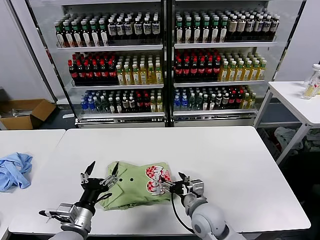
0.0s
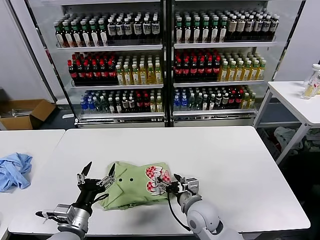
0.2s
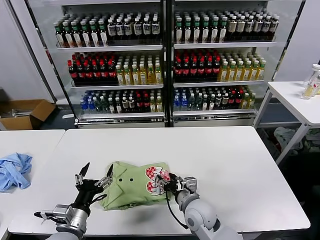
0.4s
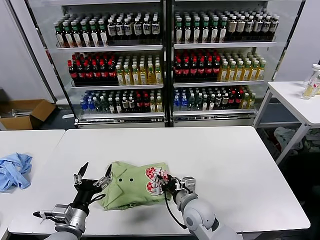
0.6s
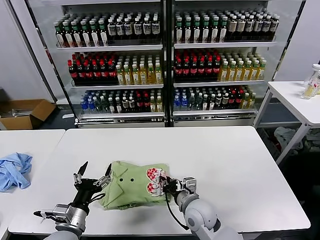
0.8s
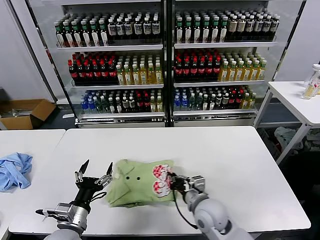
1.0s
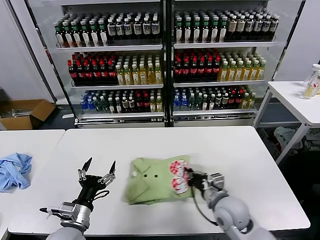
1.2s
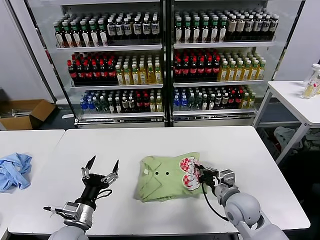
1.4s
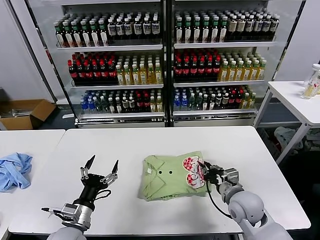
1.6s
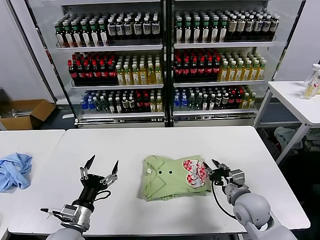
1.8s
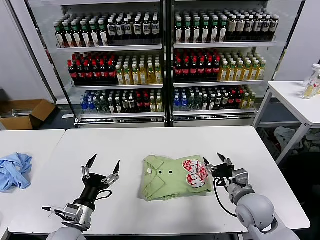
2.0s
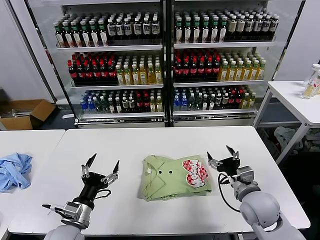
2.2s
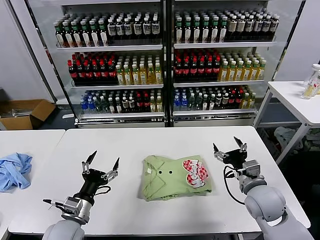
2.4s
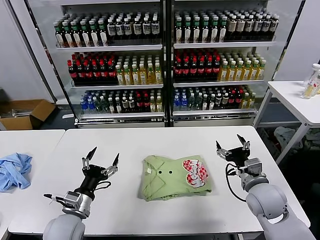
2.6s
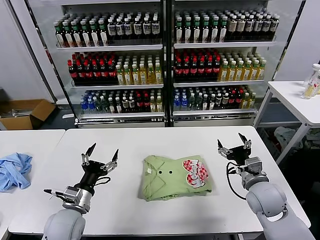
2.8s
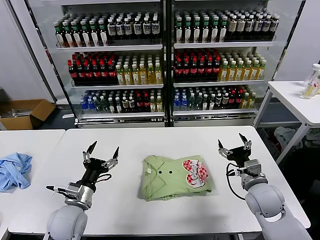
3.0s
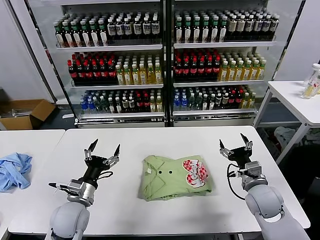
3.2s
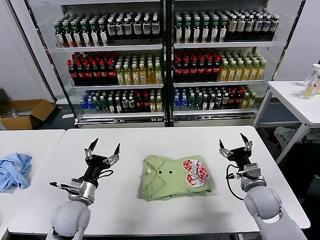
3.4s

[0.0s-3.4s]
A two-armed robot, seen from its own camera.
Task of the whole recording: fold and organize the clothes.
Step, 0.0s to 1.8s: Drag the clothes to the center of the table.
0.0s to 1.6s: The right gripper travels to the right by some 10 cm, and closes up.
1.6s to 3.4s: The left gripper heads forward, covering about 5 cm. Meanwhile the right gripper is displaced to the right by some 5 cm, and opens its fingers.

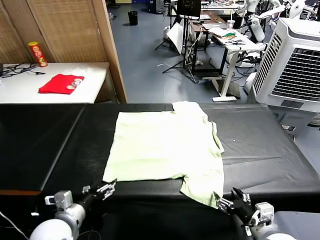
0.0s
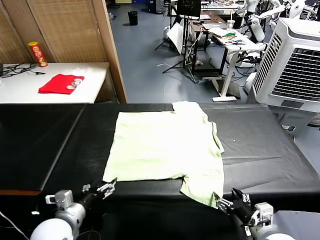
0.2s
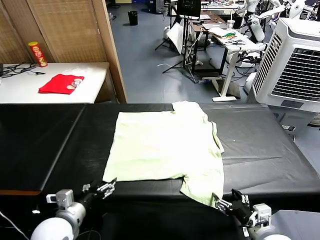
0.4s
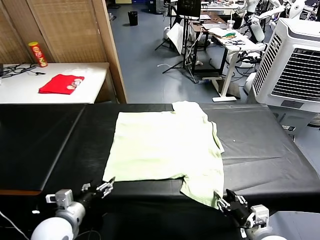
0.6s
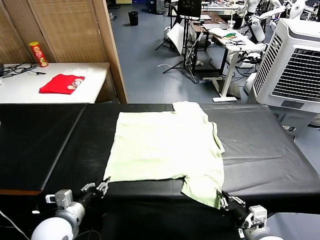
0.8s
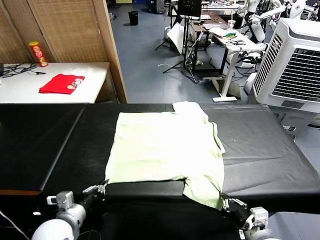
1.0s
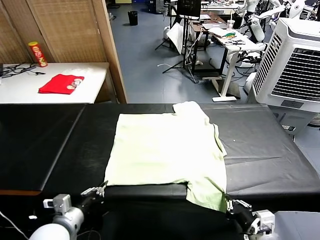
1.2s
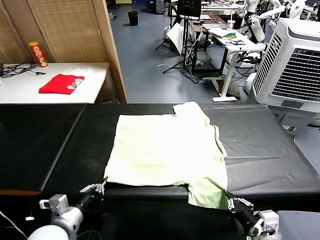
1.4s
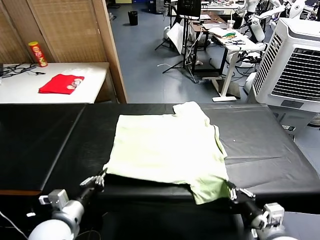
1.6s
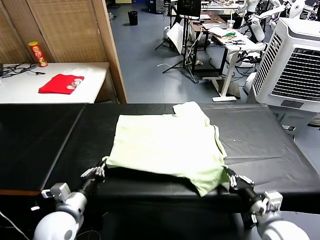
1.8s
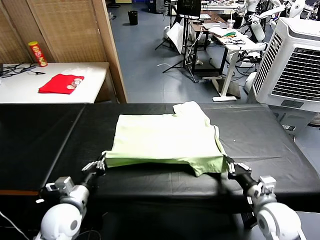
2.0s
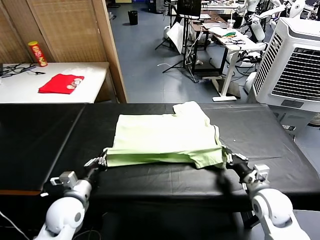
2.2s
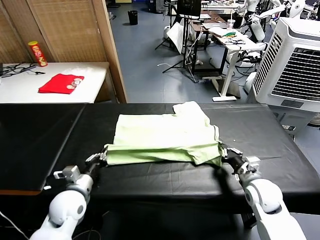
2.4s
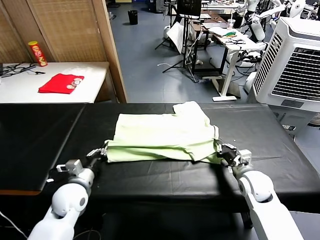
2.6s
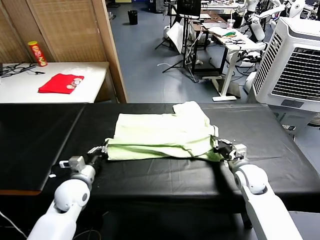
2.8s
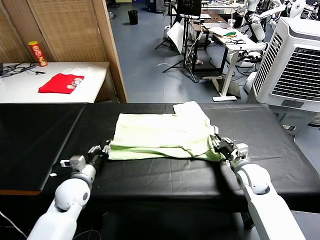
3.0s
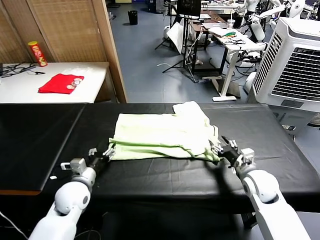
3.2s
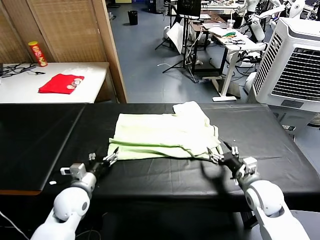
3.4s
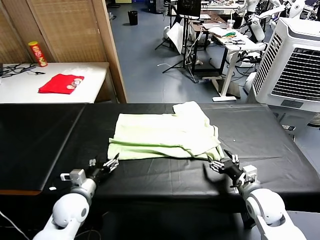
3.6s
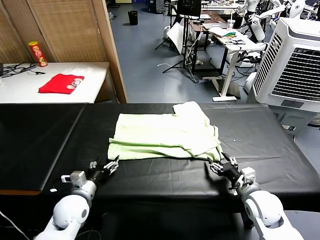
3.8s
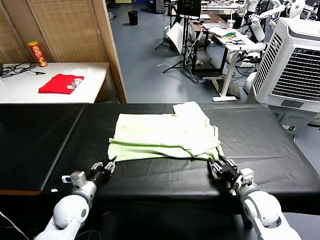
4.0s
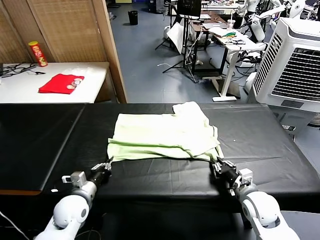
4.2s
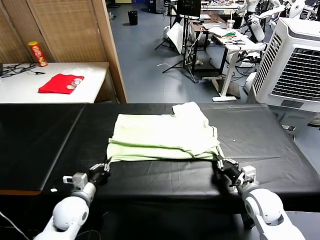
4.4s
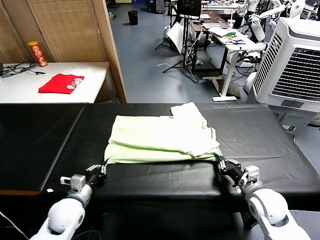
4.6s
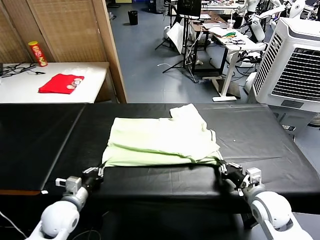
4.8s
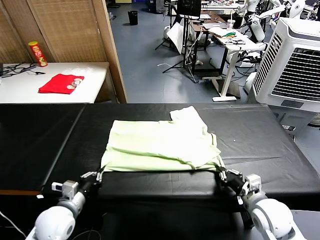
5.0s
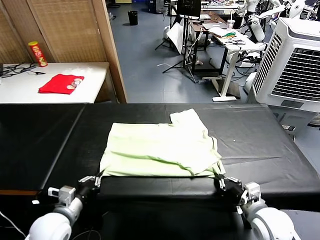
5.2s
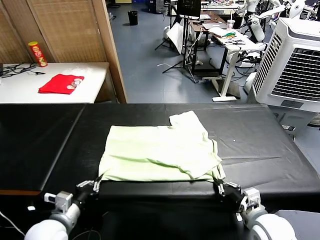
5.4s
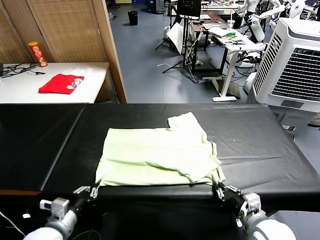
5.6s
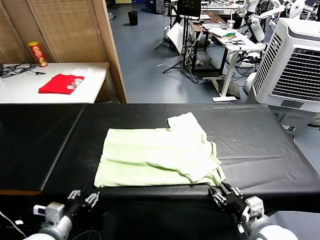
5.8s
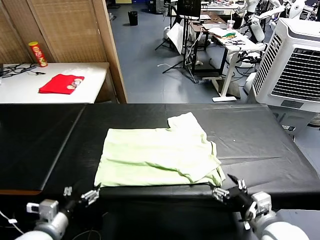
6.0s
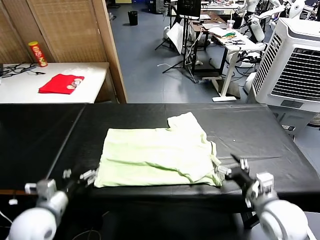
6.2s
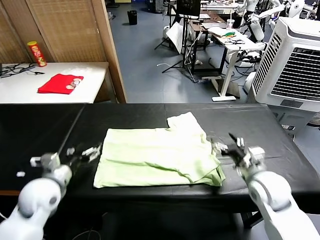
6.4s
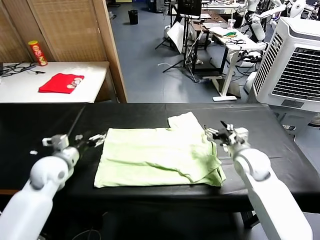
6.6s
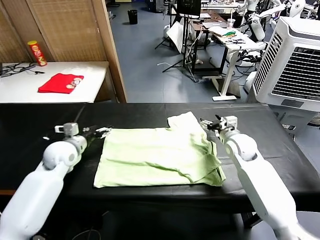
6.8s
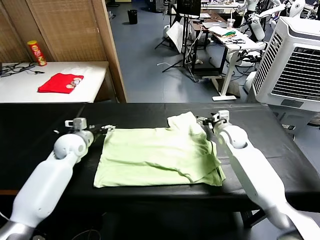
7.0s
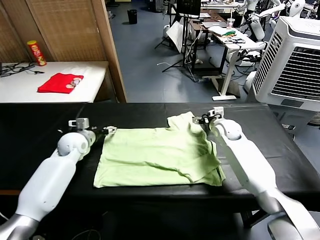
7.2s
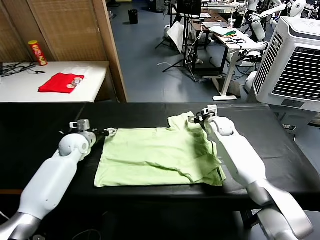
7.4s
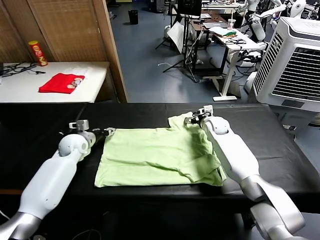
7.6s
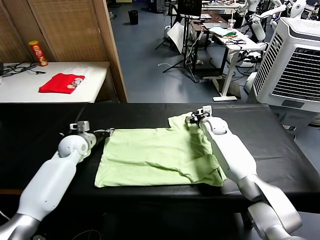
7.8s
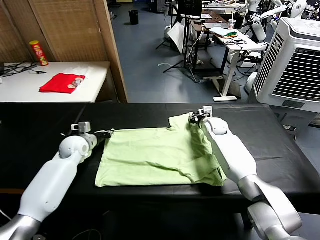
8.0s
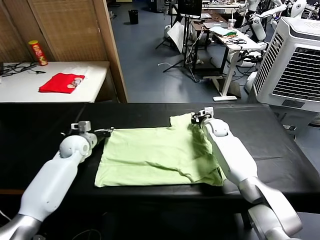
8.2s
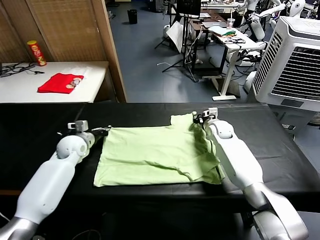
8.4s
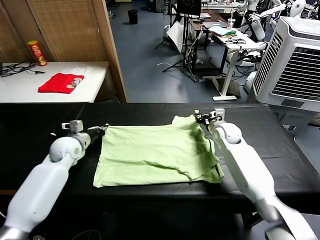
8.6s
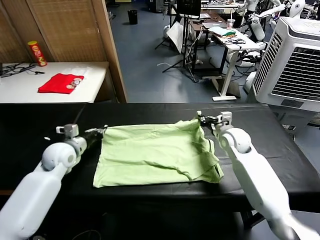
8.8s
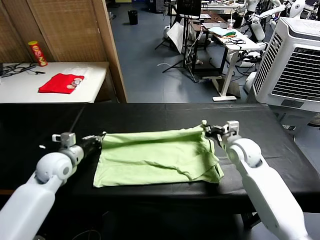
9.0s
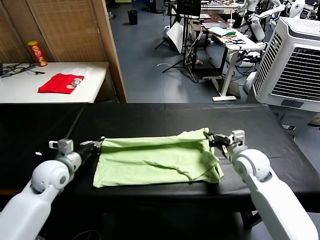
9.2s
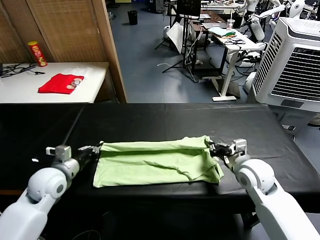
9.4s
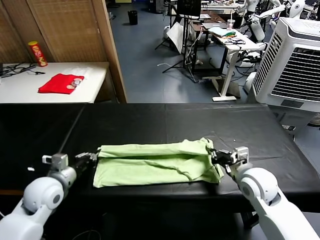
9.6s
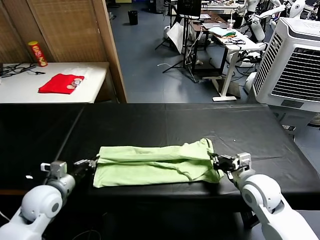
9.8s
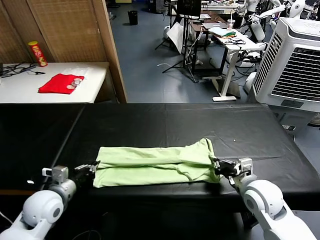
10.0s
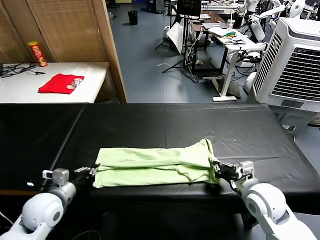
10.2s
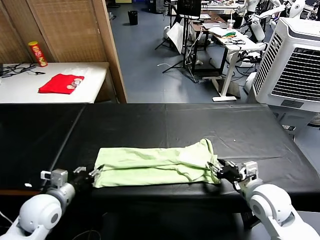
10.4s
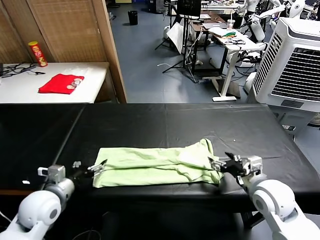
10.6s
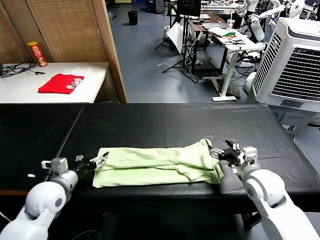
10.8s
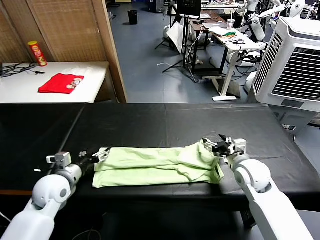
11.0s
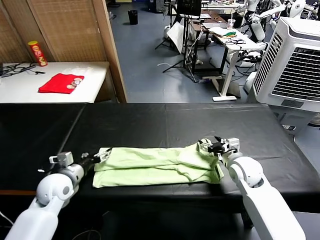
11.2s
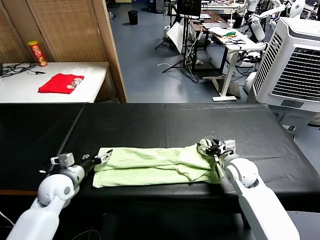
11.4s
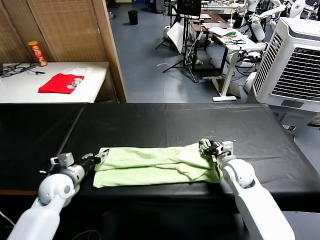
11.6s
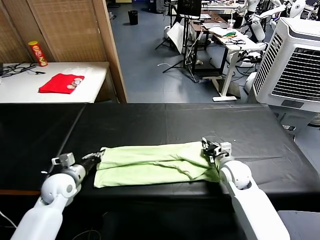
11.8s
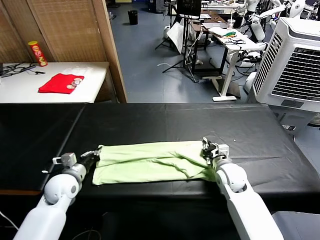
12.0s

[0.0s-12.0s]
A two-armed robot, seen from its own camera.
Task of the whole recording: fold and organize the clothes.
Step, 0.0s to 1.0s: use both grippers simultaneously to clamp the lower edge of the clothing fabric.
Step, 1.2s to 3.2s: use both grippers to drag the lower edge of the fabric forward and fold it over the upper edge.
Step, 3.4s to 5.8s: Drag the clothes downward with both gripper.
Step, 6.2s to 8.0s: use both grippers simultaneously to clamp the upper edge of the clothing fabric.
Step, 8.4s to 10.4s: use both grippers to drag the upper edge of the fabric backward and fold it over the lower edge.
1.6s to 3.0s: Both grippers move forward, some 15 cm. The right gripper opens. Meanwhile the left gripper opens up.
3.0s to 4.4s: The right gripper heads backward, covering approximately 5 cm, and closes its fingers; the left gripper moves approximately 5 cm, and closes up.
4.4s to 6.0s: Both grippers travel together backward and upward, approximately 10 cm. The right gripper opens its fingers. The left gripper opens up.
6.0s to 7.6s: The two grippers go some 35 cm forward. The right gripper closes.
7.6s to 9.0s: The right gripper travels backward by roughly 20 cm, and closes up. The left gripper heads backward, covering about 10 cm, and closes its fingers.
9.0s to 10.4s: The grippers both shift backward by some 10 cm. The left gripper opens. The right gripper opens its fingers.
10.4s to 12.0s: The right gripper goes roughly 15 cm forward, downward and to the left, and closes its fingers, while the left gripper moves forward and downward, some 10 cm, and closes.

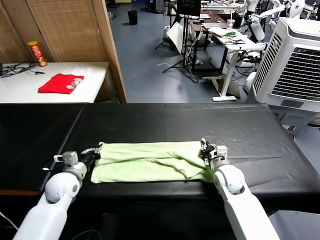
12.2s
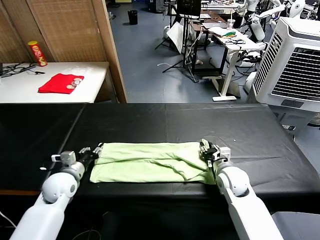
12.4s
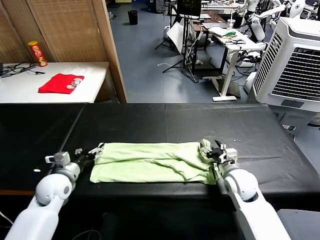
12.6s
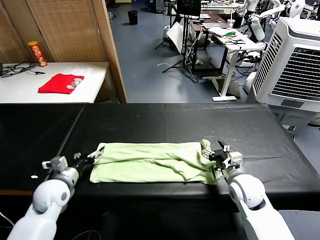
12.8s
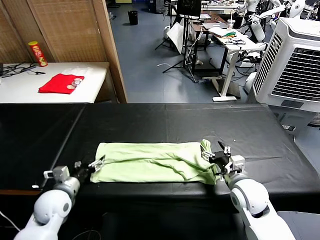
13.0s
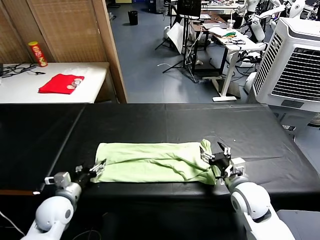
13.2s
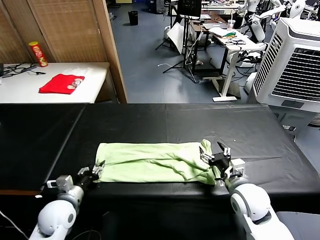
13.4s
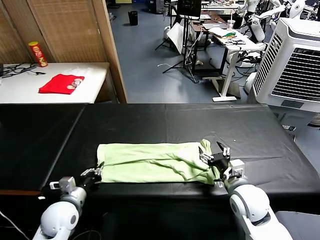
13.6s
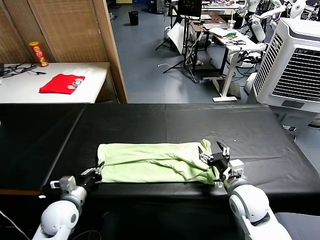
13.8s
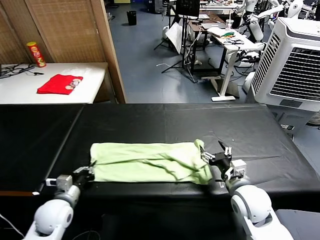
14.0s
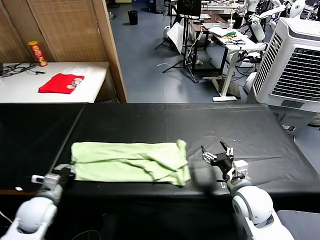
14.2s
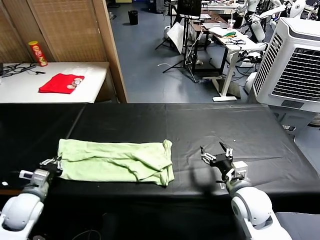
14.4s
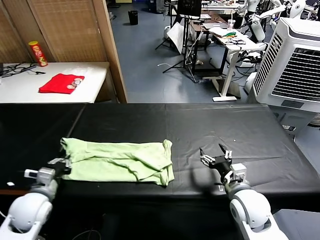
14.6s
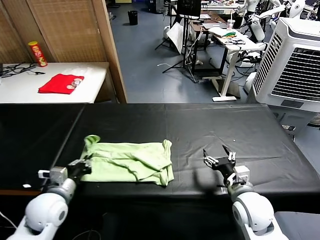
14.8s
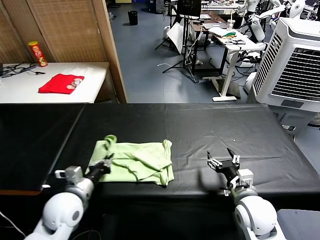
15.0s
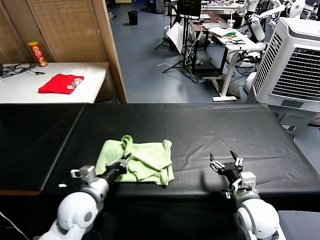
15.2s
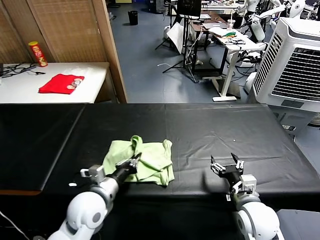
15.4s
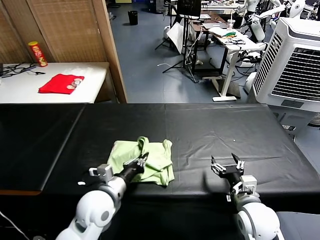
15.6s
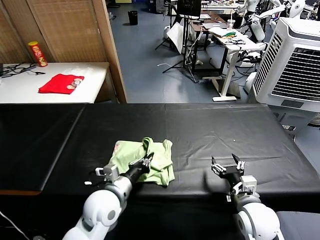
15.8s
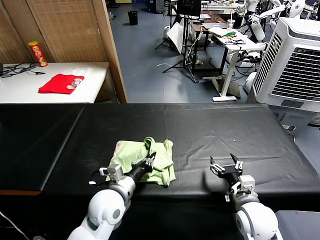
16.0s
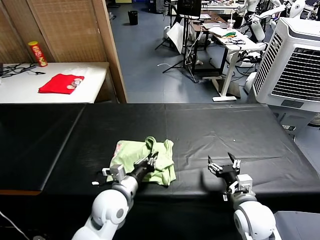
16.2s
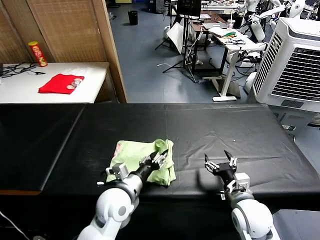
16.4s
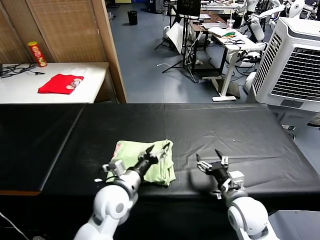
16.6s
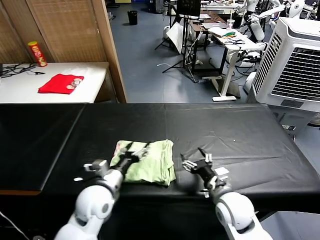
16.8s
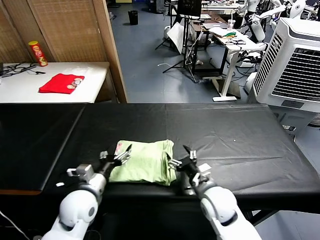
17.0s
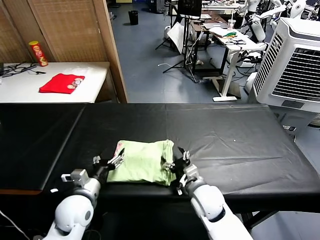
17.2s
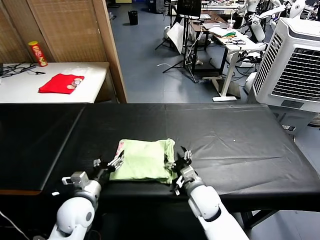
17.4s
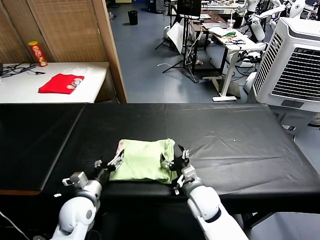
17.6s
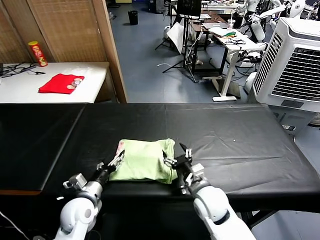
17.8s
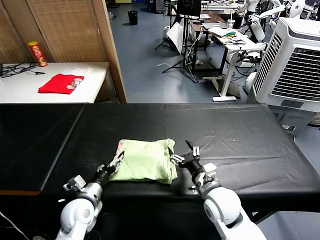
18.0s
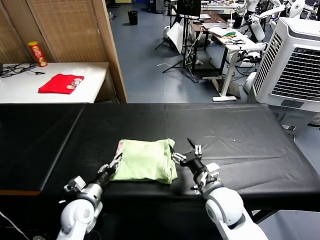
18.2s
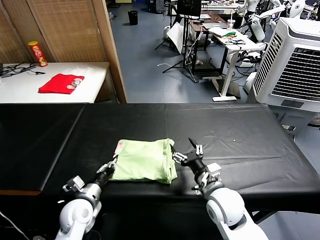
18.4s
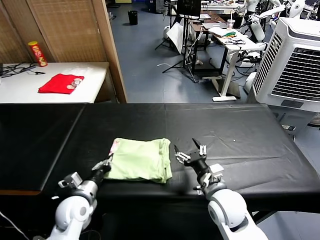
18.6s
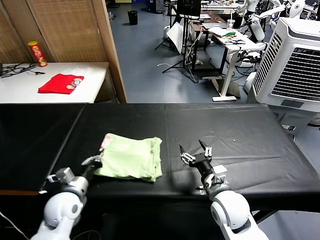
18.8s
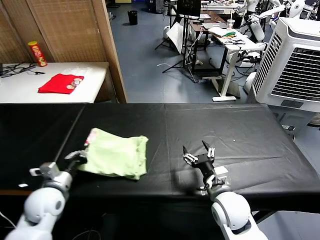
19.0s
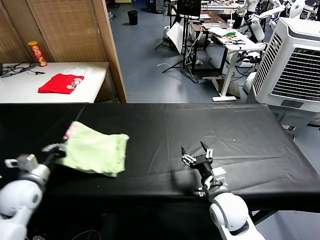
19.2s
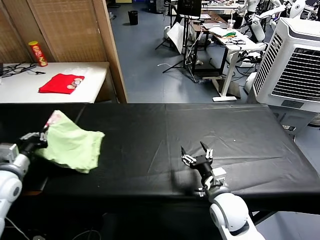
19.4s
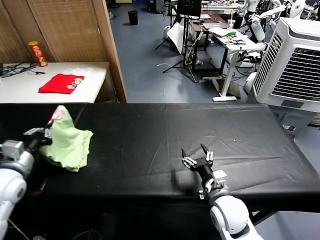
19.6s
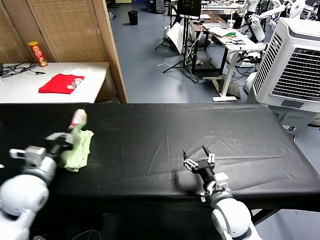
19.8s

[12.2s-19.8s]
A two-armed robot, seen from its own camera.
Task of the whole recording: fold and organize the clothes.
Step, 13.8s to 16.4s: use the left gripper to drag the left edge of the fabric to the left and folds it over the right edge.
12.2s to 13.8s: The left gripper travels backward by approximately 10 cm, and opens, then closes again. Meanwhile the right gripper moves backward and upward, approximately 10 cm, and opens its fingers.
13.8s to 15.2s: The left gripper travels to the right and upward by about 10 cm.
15.2s to 16.8s: The right gripper travels to the left by roughly 5 cm; the left gripper opens up.
16.8s to 18.2s: The left gripper moves to the left and downward, roughly 10 cm.
18.2s to 19.8s: The left gripper goes approximately 20 cm upward and to the left, and closes.
